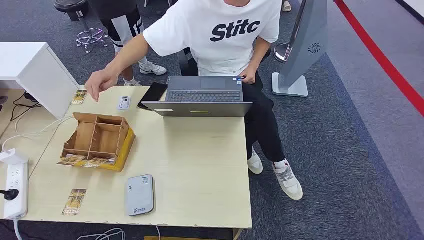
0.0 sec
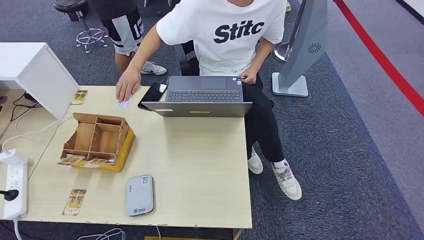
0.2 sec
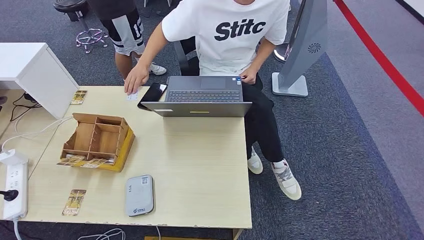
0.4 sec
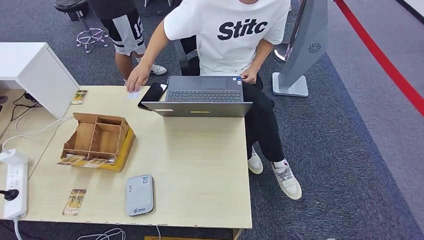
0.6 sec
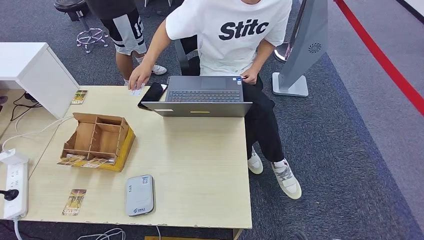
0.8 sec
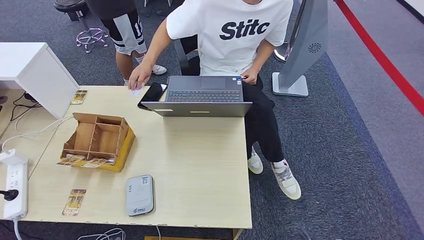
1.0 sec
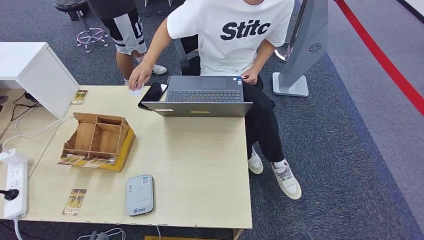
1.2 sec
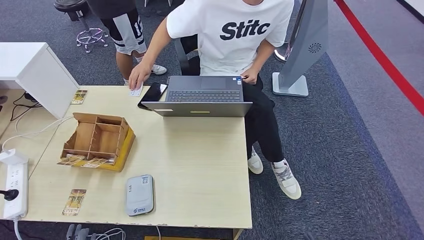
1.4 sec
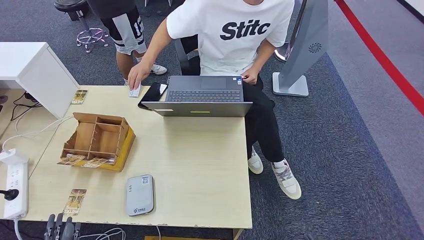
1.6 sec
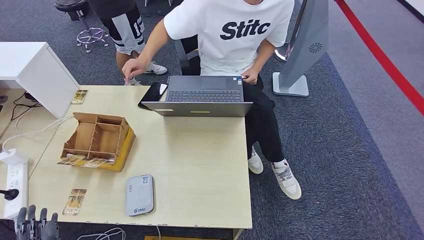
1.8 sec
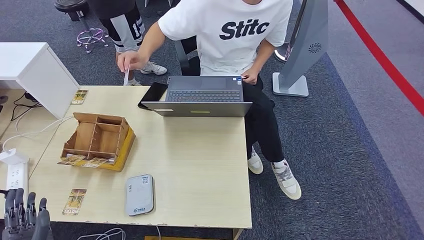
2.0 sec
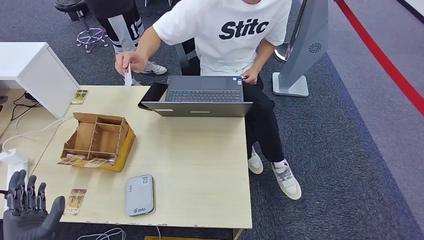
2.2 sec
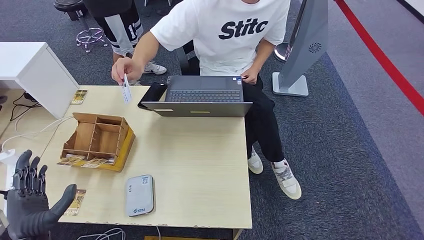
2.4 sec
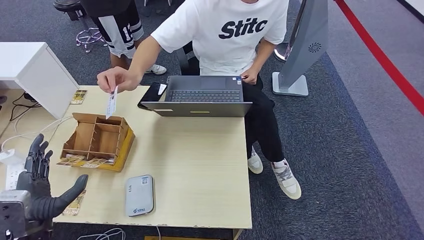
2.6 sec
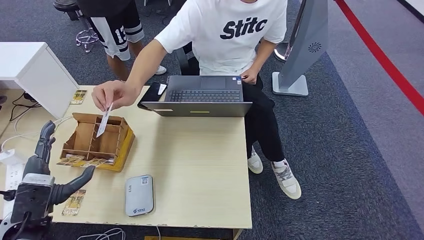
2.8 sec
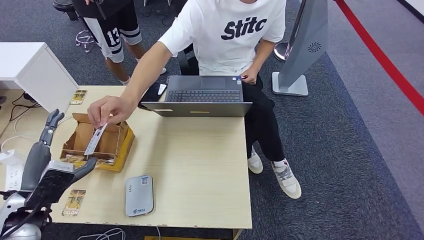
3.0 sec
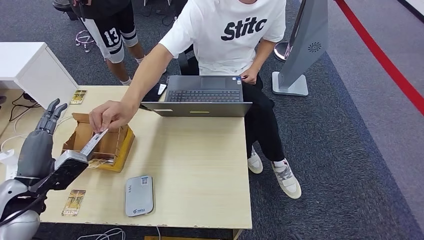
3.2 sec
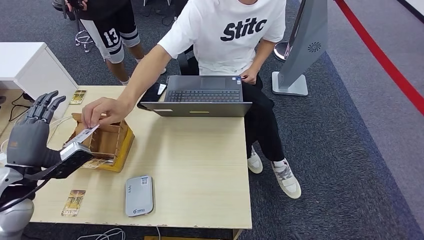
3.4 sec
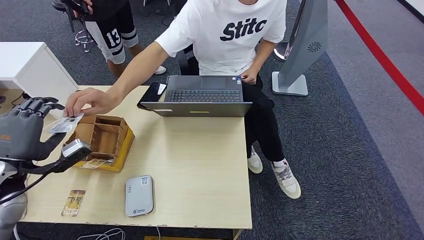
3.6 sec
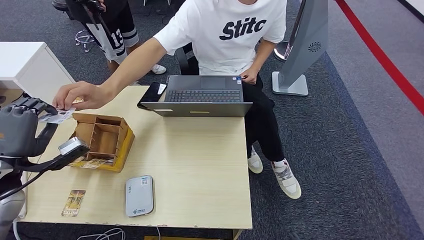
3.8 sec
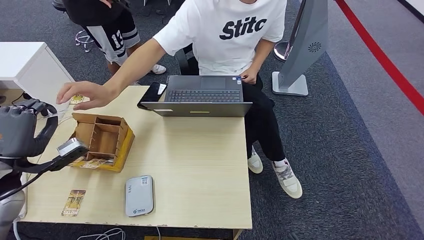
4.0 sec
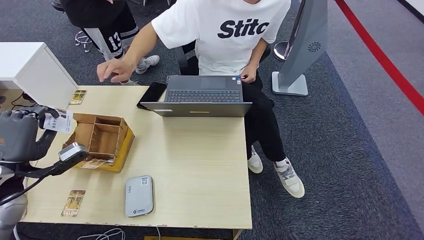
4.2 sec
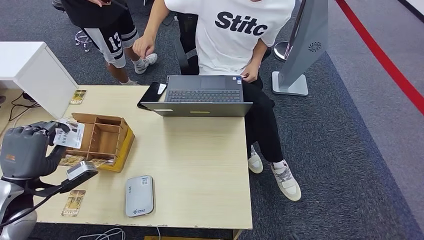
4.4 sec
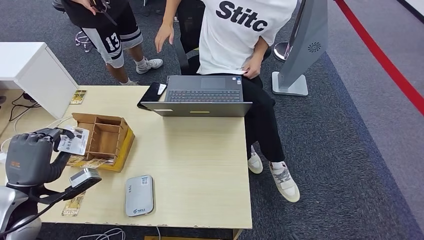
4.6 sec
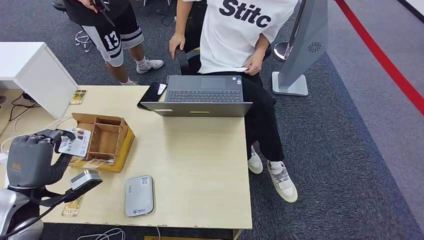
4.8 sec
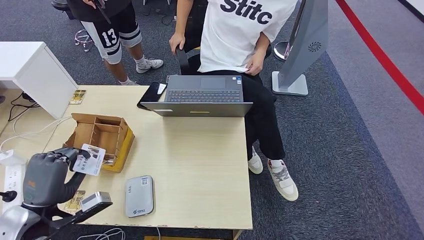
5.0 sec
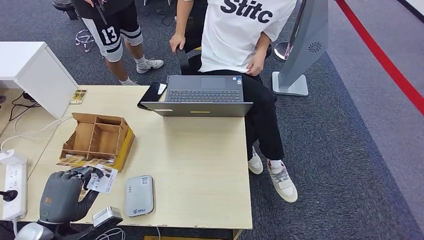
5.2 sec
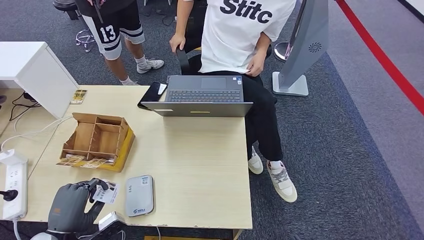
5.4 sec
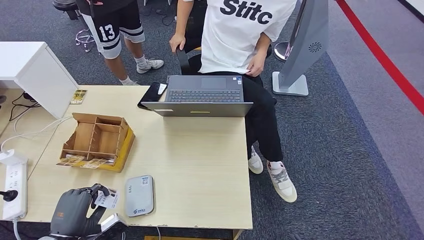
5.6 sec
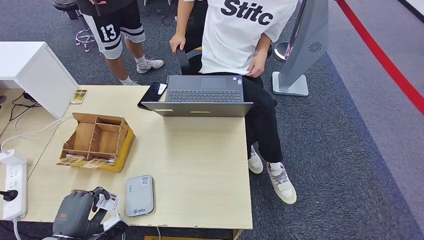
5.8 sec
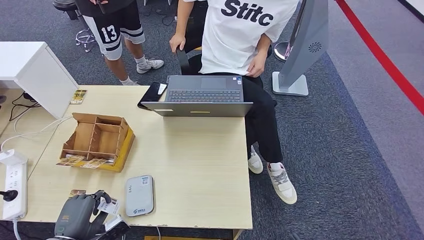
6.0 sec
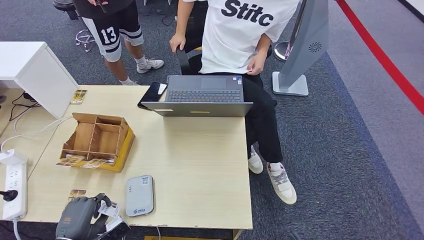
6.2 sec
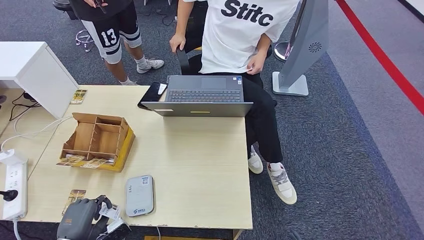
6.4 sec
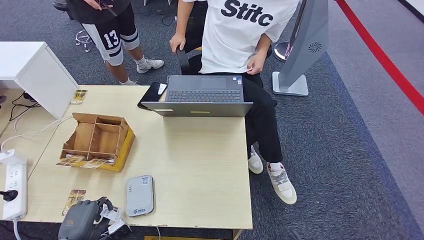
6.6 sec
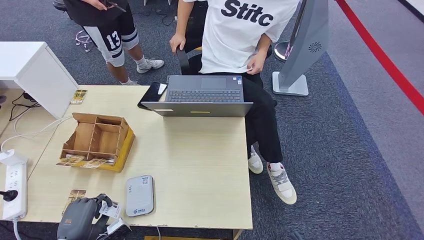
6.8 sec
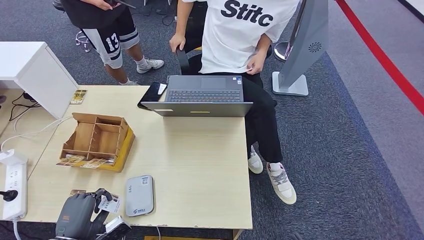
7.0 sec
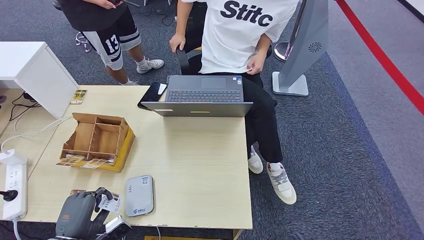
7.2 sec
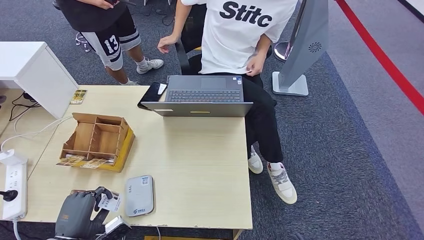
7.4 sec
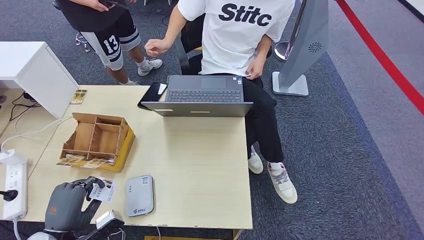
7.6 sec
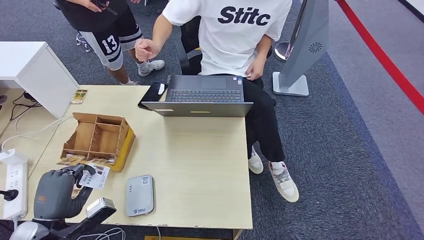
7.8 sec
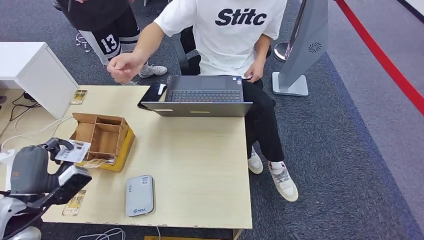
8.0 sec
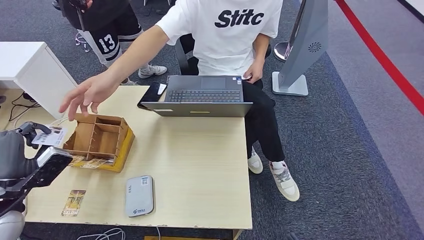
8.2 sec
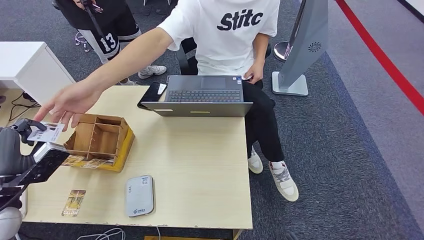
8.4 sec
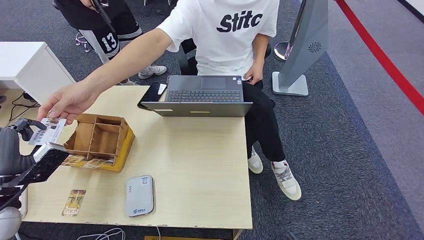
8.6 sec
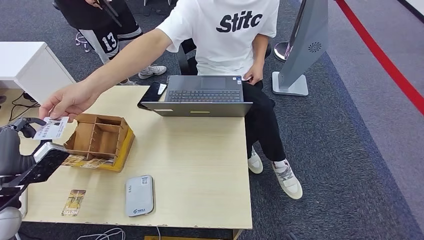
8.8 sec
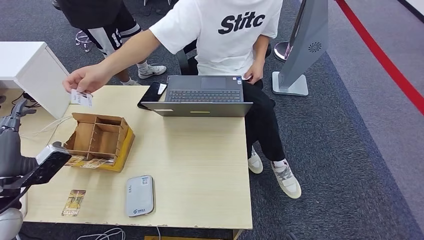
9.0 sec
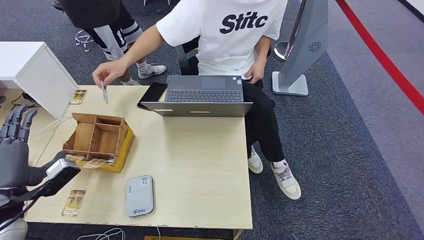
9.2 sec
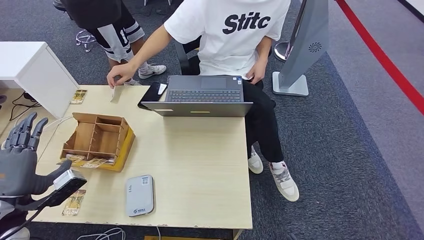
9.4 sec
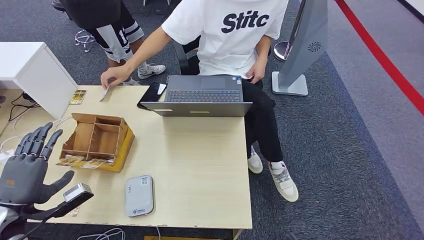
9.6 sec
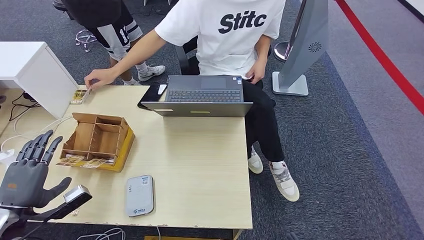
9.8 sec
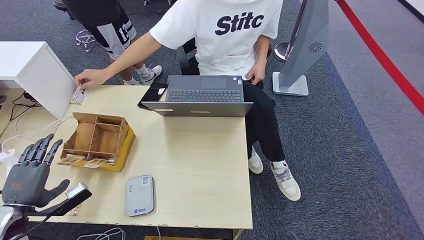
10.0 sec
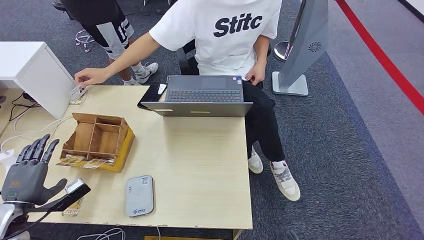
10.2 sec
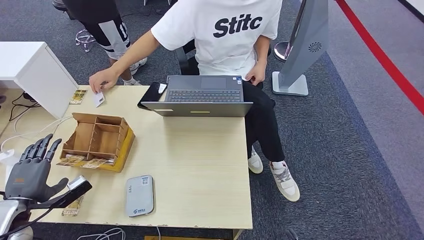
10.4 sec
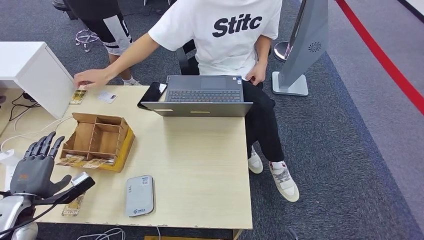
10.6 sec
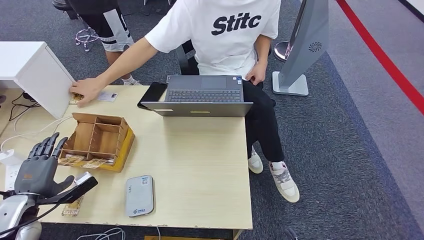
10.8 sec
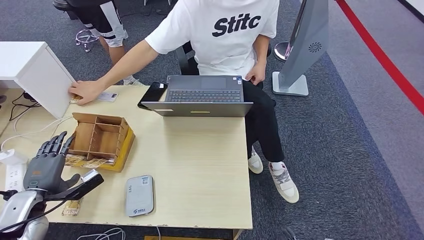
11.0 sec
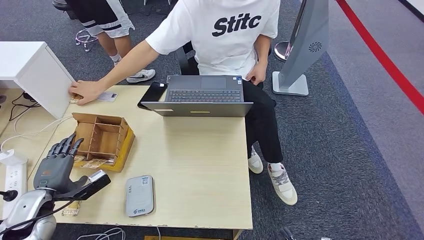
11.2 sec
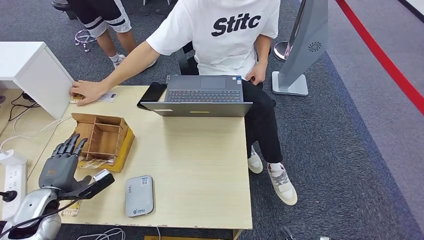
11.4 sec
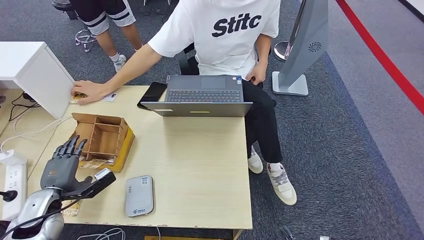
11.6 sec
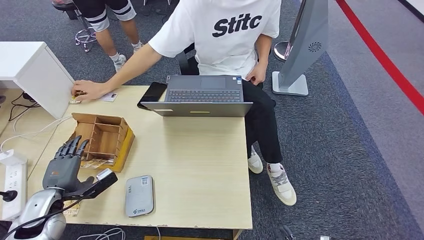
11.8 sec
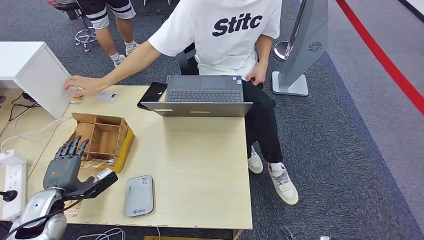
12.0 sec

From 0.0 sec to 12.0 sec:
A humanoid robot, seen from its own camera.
Step, from 0.0 sec to 4.2 sec: Take the ID card from the person's hand.
Step, from 4.6 sec to 6.8 sec: Place the ID card on the card reader.
Step, from 7.2 sec to 9.2 sec: Hand the ID card to the person.
From 1.6 sec to 3.0 sec: The left hand moves forward, upward and to the left, some 20 cm.
From 4.4 sec to 6.0 sec: The left hand heads downward, backward and to the right, covering roughly 20 cm.
From 6.0 sec to 7.6 sec: The hands stay close to where they were, moving slightly.
From 7.6 sec to 9.0 sec: The left hand is displaced upward, forward and to the left by about 15 cm.
From 9.0 sec to 10.4 sec: The left hand goes some 10 cm downward.
From 10.4 sec to 12.0 sec: The left hand shifts approximately 5 cm to the right.

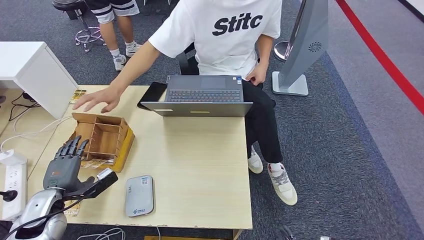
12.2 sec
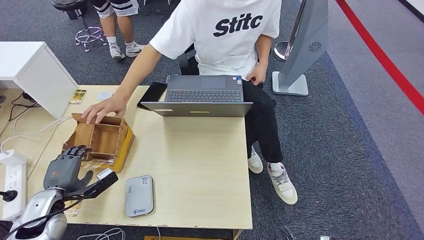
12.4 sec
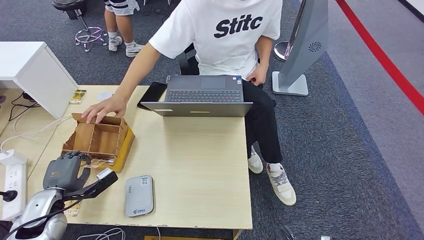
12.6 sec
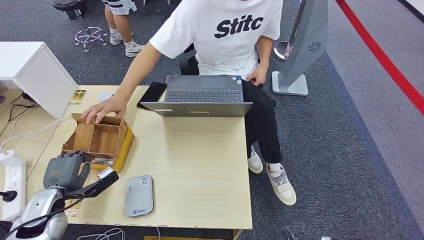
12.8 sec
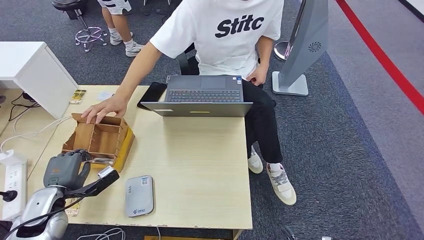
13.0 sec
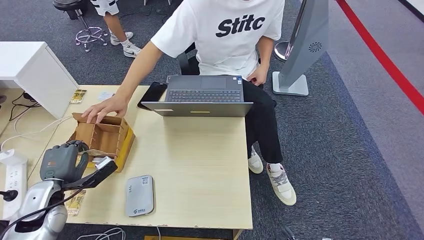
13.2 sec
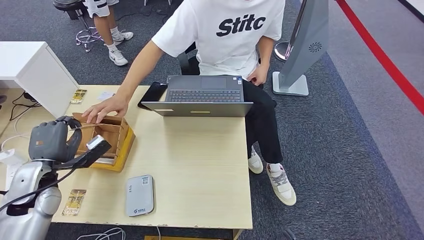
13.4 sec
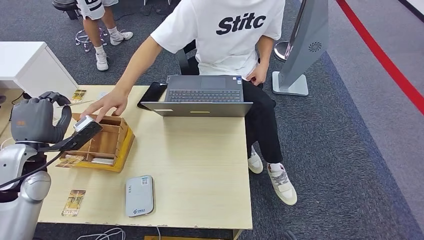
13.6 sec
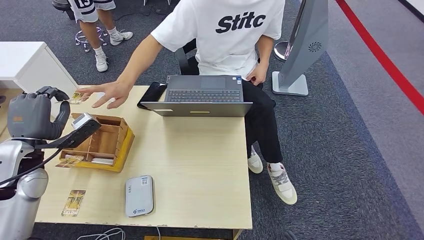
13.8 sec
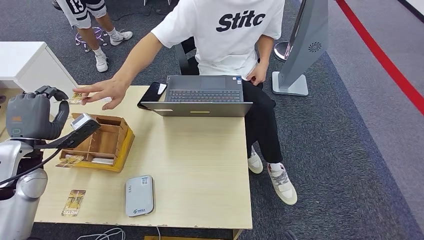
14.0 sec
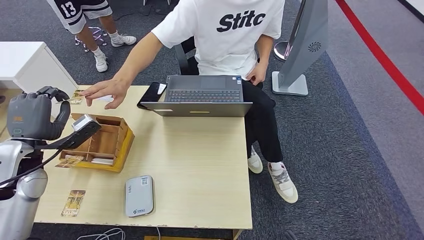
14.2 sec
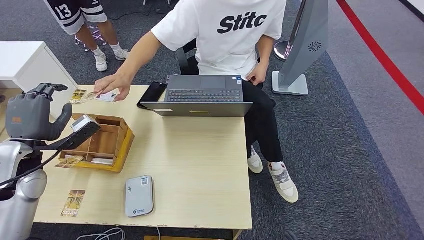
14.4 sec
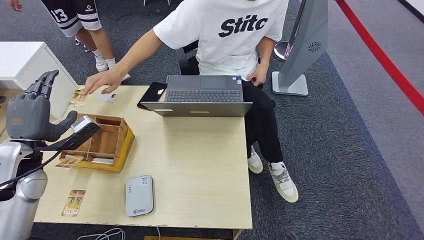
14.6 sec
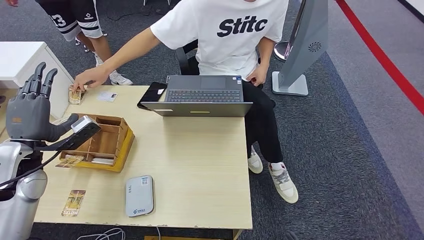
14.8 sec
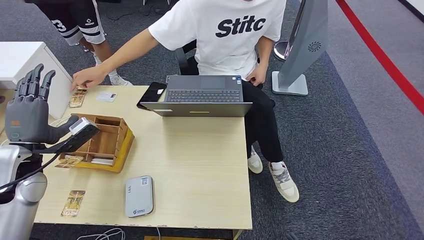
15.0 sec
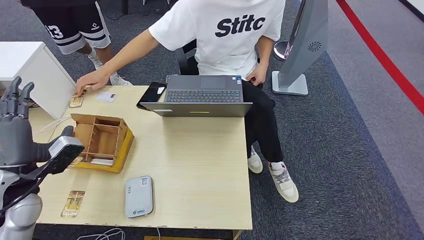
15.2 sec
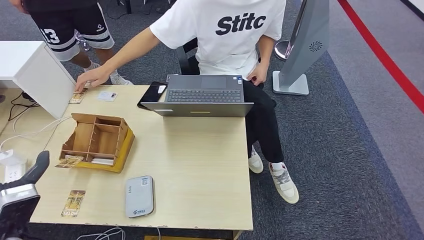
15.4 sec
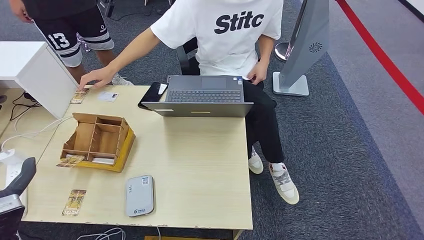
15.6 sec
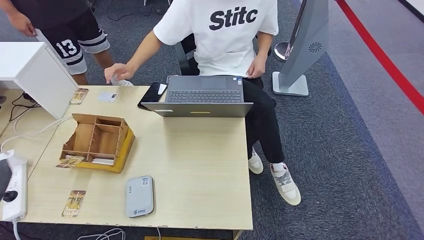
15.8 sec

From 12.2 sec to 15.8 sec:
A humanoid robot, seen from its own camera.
Step, from 13.6 sec to 15.8 sec: Hand the room key to the person.
From 12.2 sec to 14.0 sec: The left hand shifts approximately 15 cm upward and forward.
From 14.0 sec to 15.8 sec: The left hand is displaced backward by approximately 15 cm.
